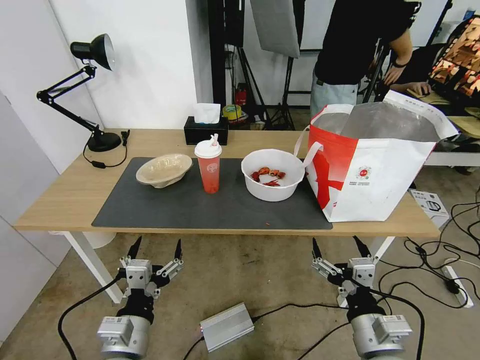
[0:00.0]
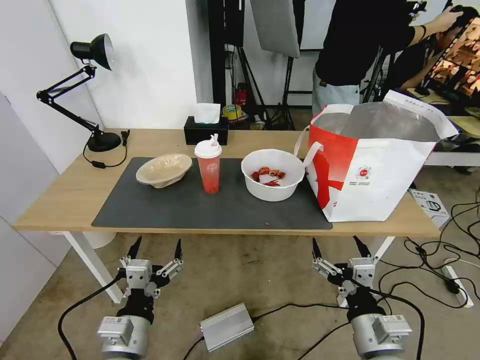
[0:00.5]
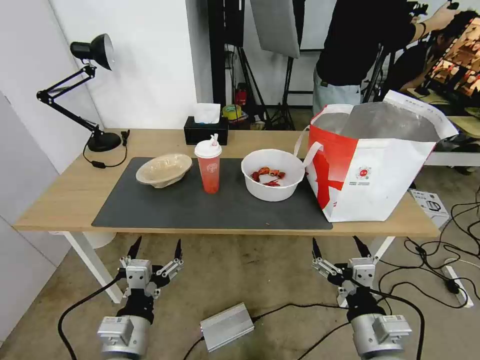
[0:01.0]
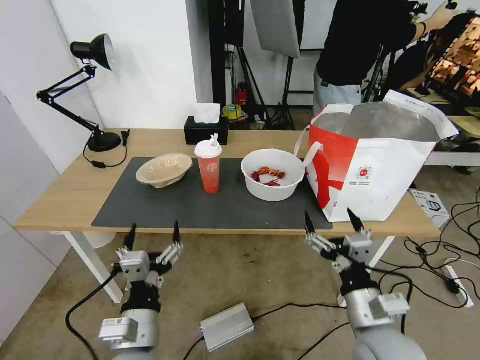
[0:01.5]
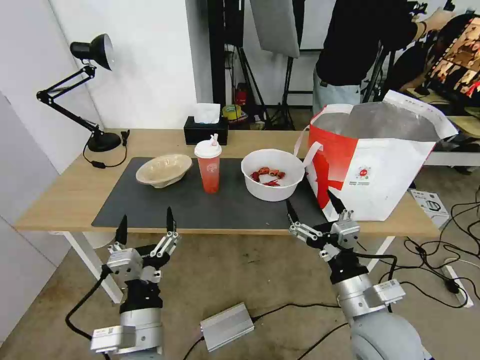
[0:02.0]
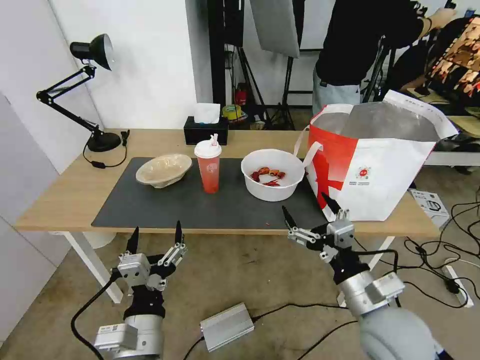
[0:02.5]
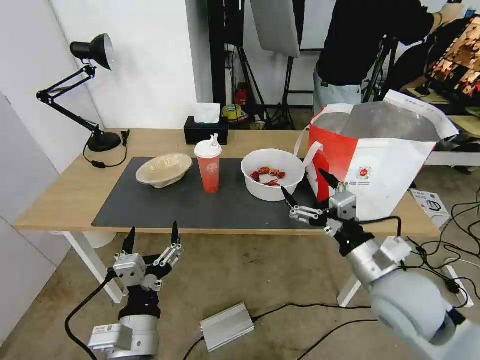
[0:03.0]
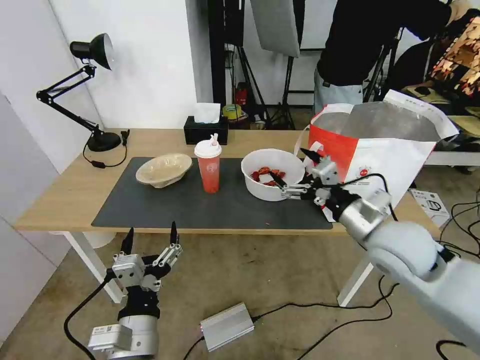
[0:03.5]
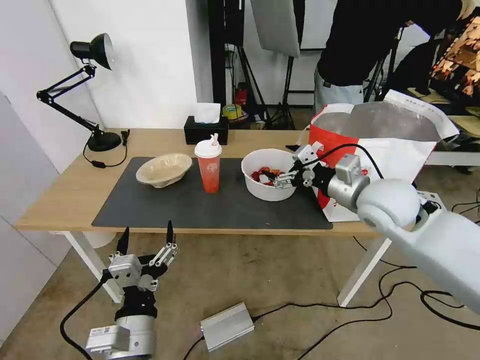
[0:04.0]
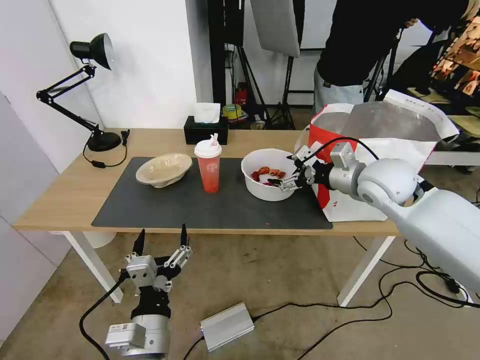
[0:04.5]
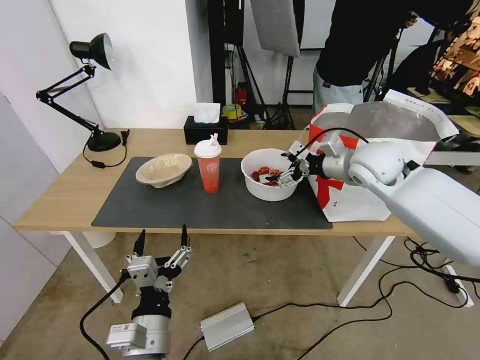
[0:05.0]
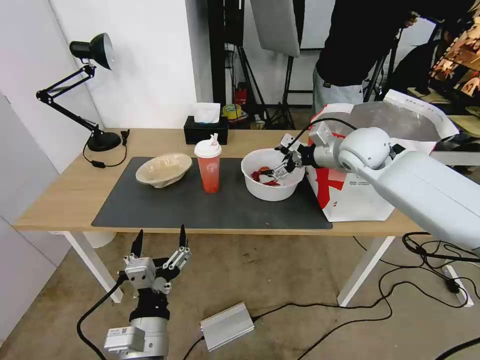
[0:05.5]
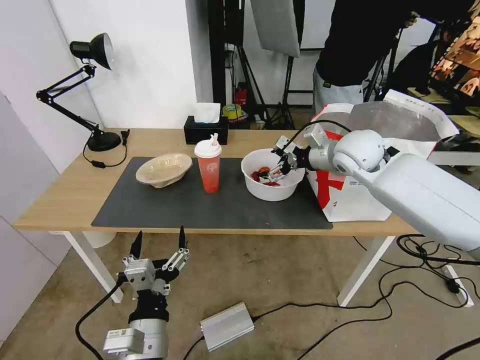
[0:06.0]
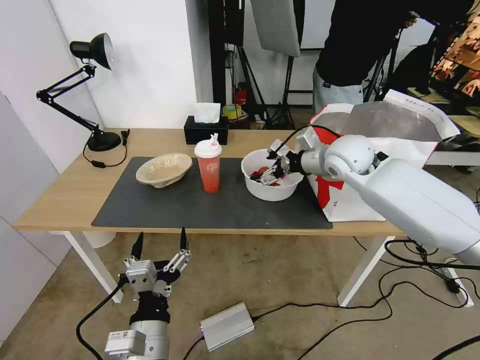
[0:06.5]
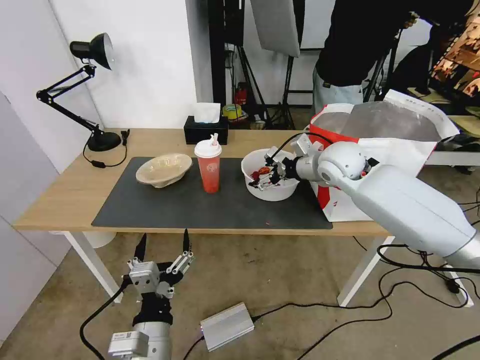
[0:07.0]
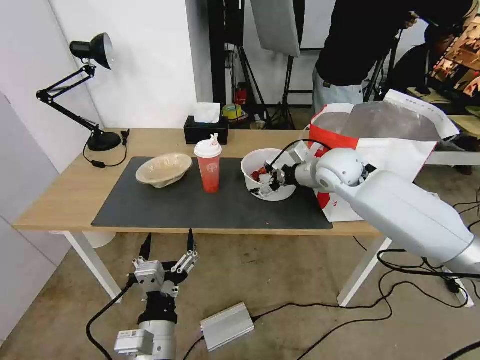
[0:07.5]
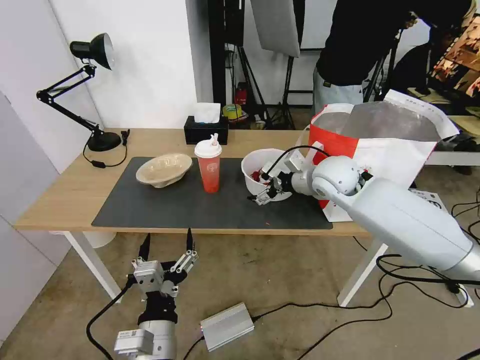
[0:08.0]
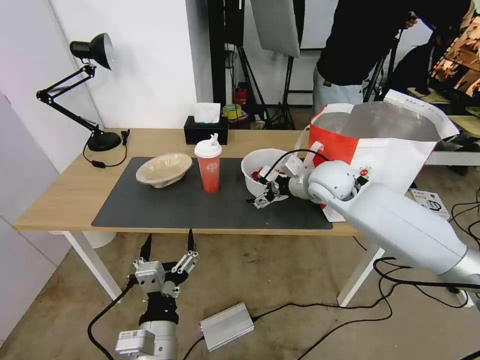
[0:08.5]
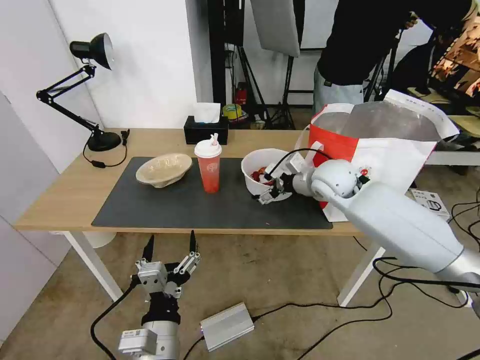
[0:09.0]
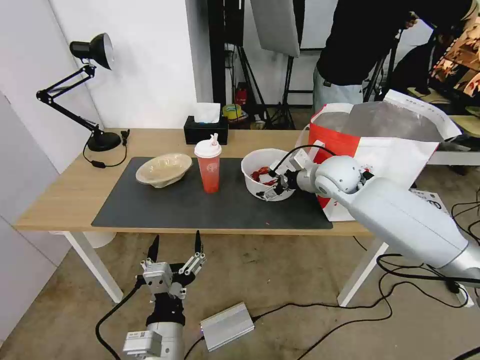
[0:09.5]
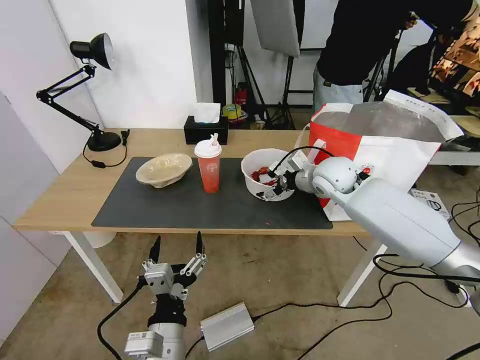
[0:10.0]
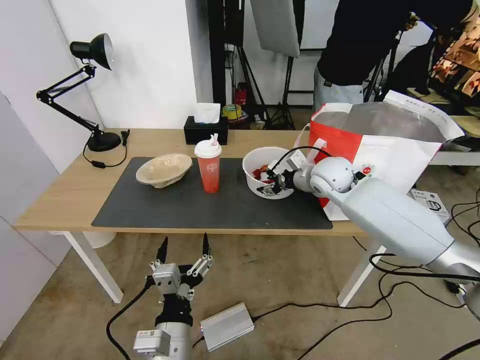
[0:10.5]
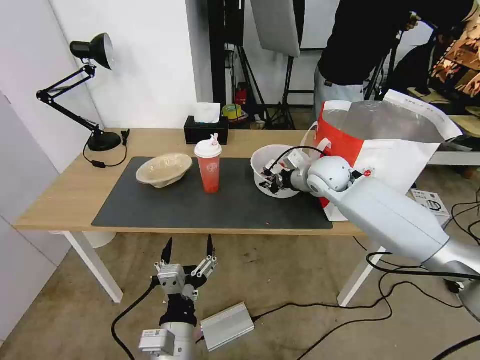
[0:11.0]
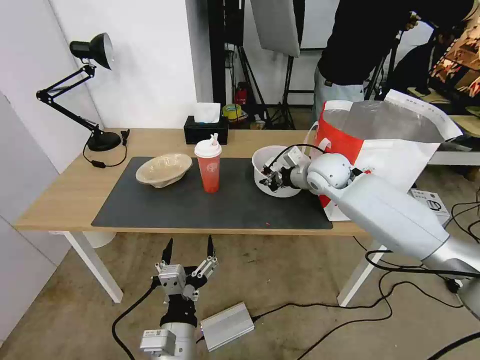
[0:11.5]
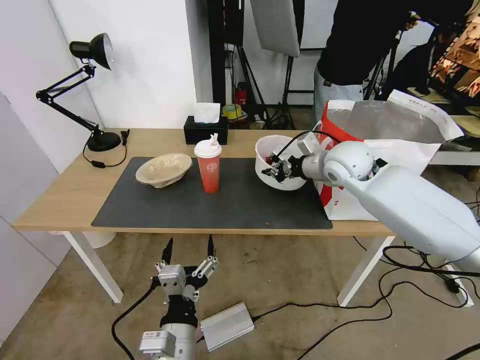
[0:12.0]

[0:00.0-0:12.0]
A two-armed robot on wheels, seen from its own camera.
Task of the whole recording: Pick up the trash from the table and place it into the takeout bag.
0:02.0 to 0:04.0: The right gripper is displaced forward and upward by about 25 cm.
0:04.0 to 0:06.0: The right gripper shifts about 15 cm forward.
0:06.0 to 0:08.0: The right gripper heads downward, covering approximately 5 cm.
0:08.0 to 0:10.0: There are only small adjustments of the grippers.
0:10.0 to 0:12.0: The right gripper is displaced upward by about 5 cm, and closes its fingers.

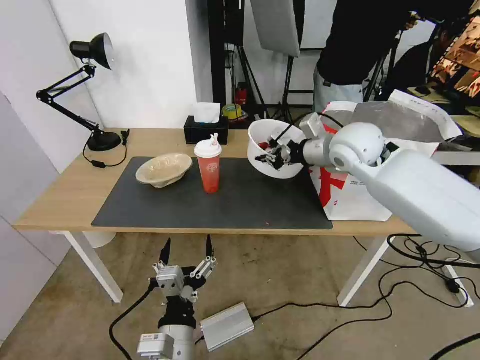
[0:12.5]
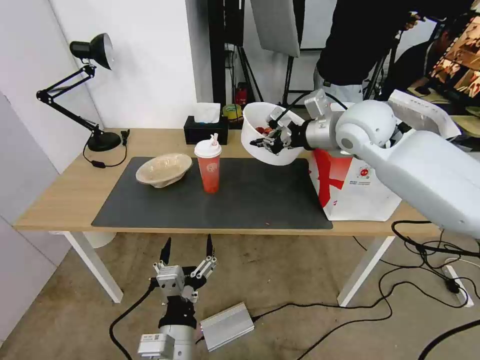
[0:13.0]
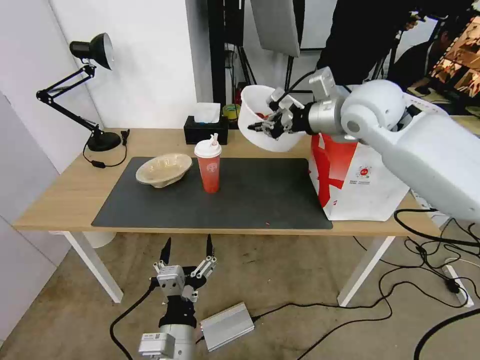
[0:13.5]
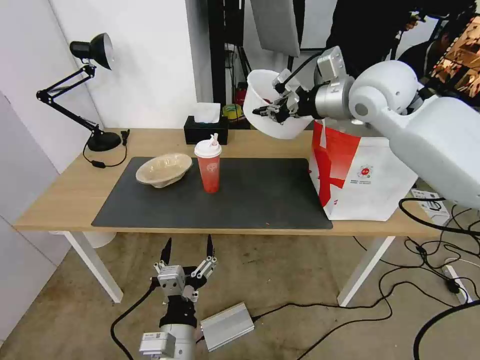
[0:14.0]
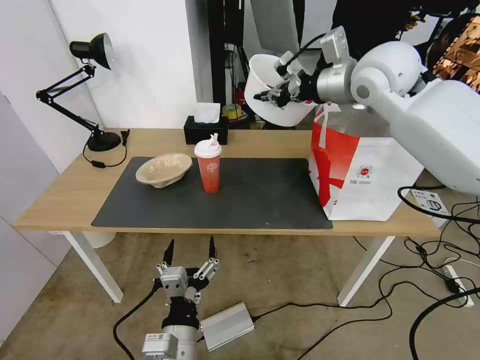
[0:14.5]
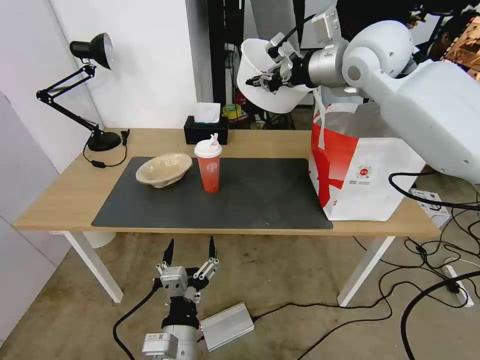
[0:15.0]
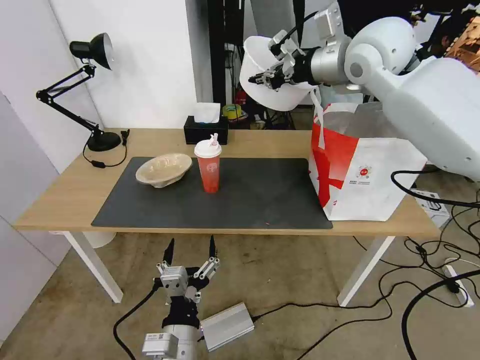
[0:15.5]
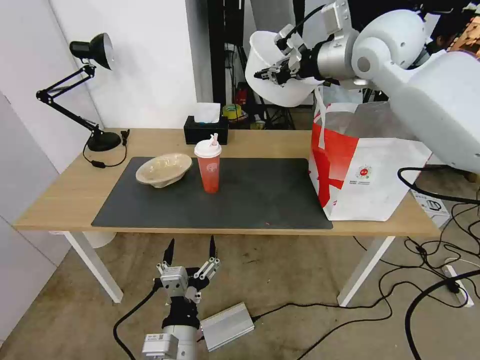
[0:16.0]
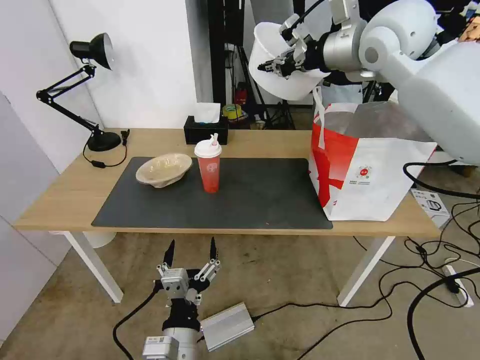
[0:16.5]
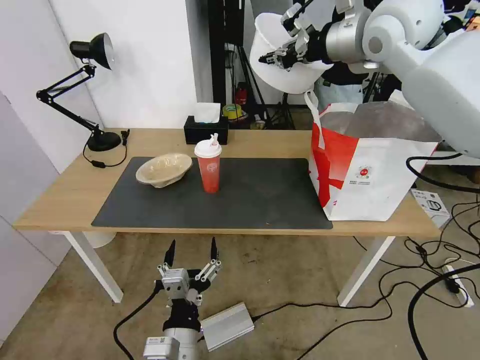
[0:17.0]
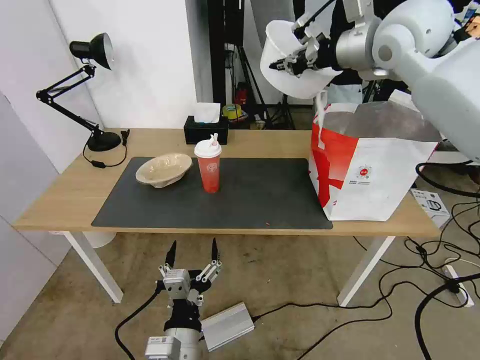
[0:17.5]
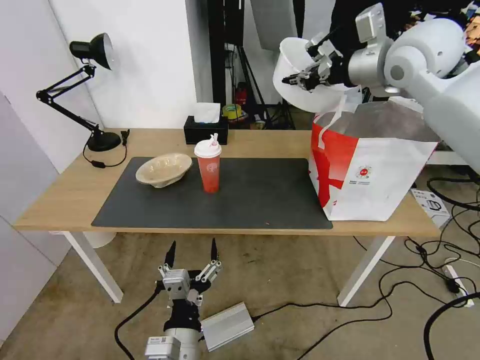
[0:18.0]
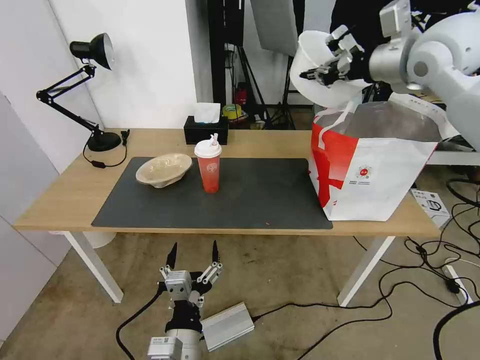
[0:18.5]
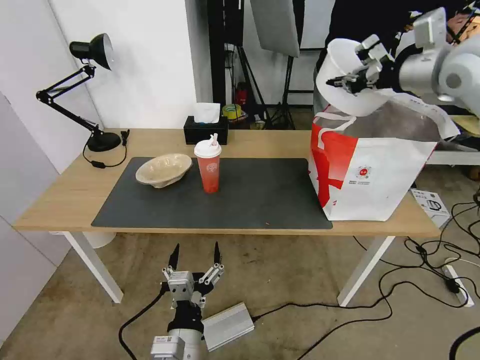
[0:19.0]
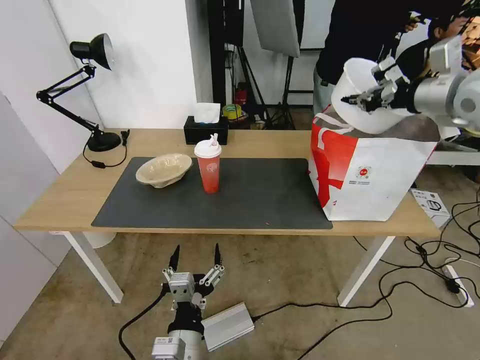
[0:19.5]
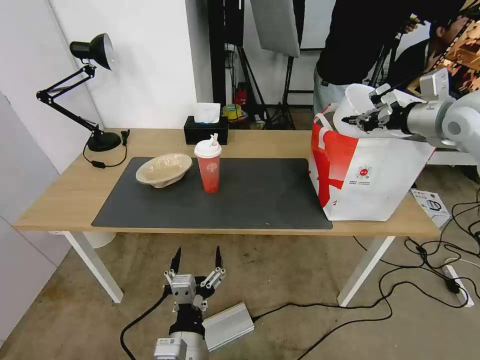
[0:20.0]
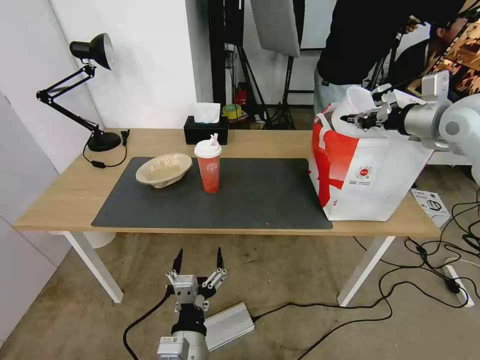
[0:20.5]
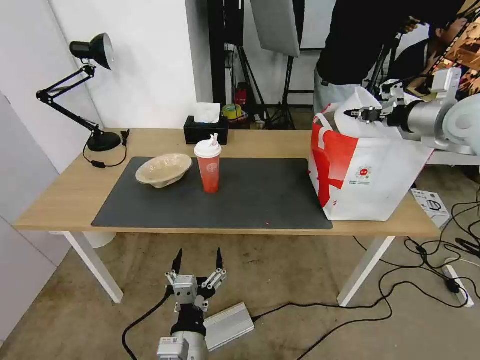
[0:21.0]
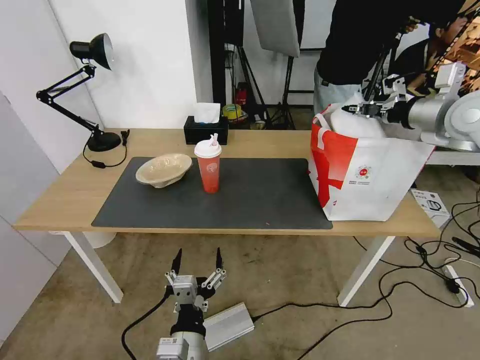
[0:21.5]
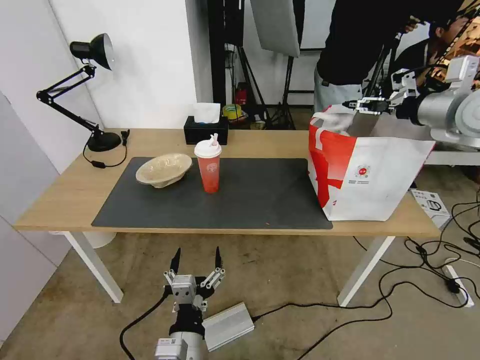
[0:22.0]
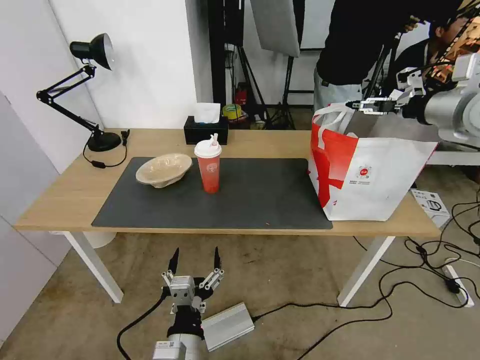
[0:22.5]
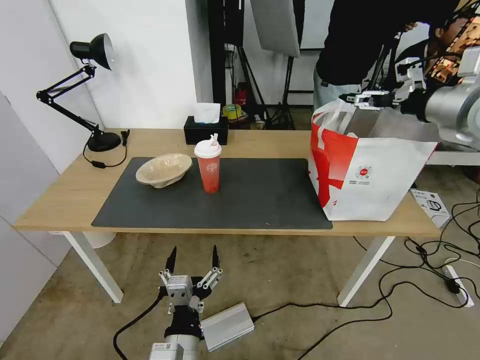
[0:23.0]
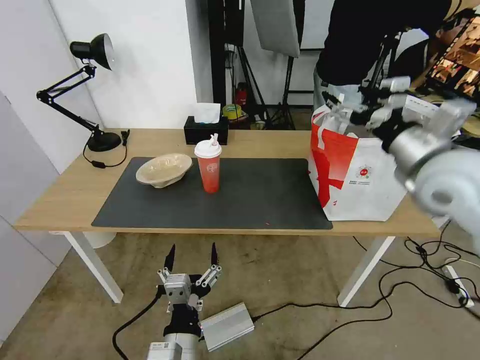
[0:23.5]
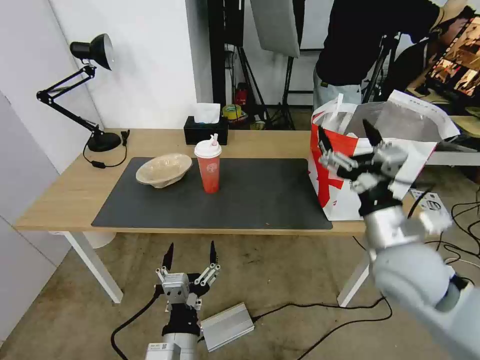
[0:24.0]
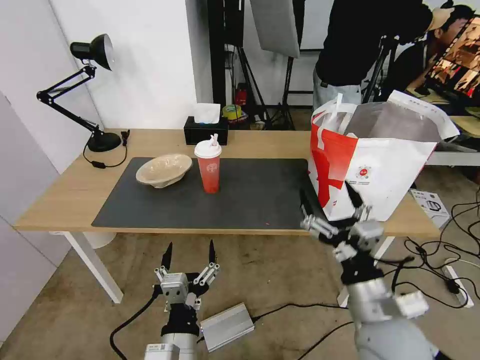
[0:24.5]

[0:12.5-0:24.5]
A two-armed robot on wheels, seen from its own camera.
Task of the whole recording: Pick up the trash from the table and place it into the takeout bag.
0:12.5 to 0:14.5: The right gripper heads upward, covering approximately 15 cm.
0:14.5 to 0:16.5: There are only small adjustments of the grippers.
0:16.5 to 0:18.5: The right gripper heads to the right, covering about 10 cm.
0:18.5 to 0:20.5: The right gripper moves to the right and downward, about 15 cm.
0:20.5 to 0:22.5: The right gripper opens.
0:22.5 to 0:24.5: The right gripper heads backward, downward and to the left, covering some 40 cm.

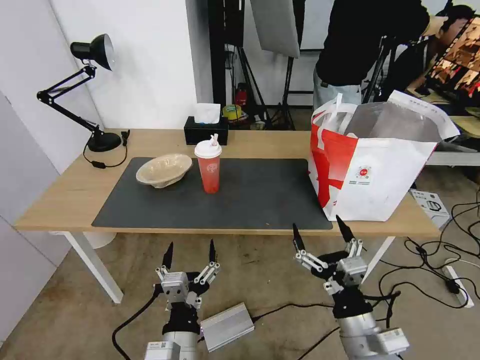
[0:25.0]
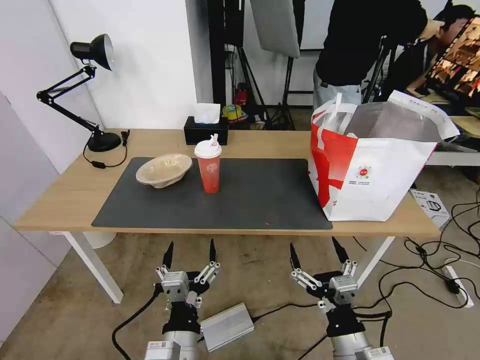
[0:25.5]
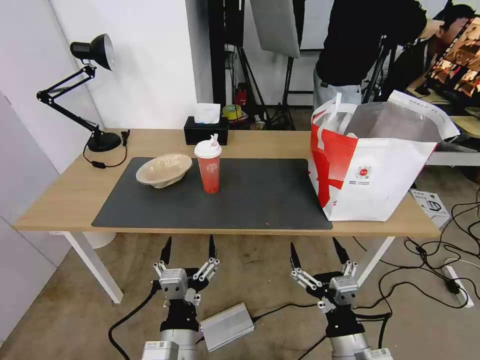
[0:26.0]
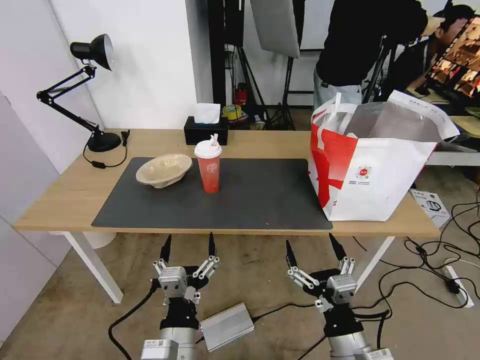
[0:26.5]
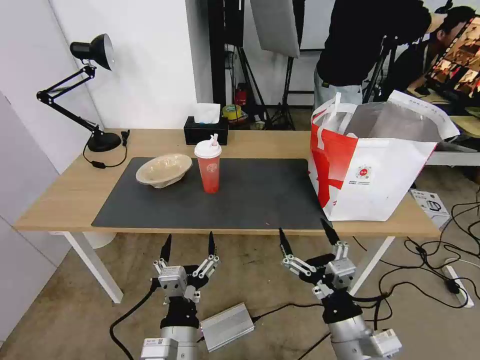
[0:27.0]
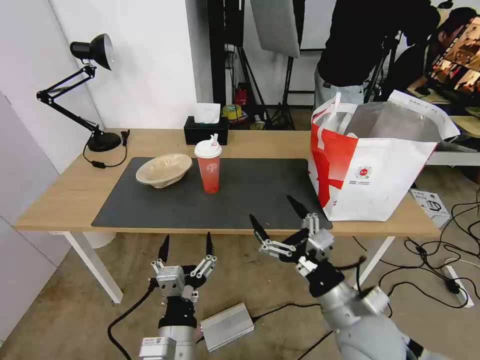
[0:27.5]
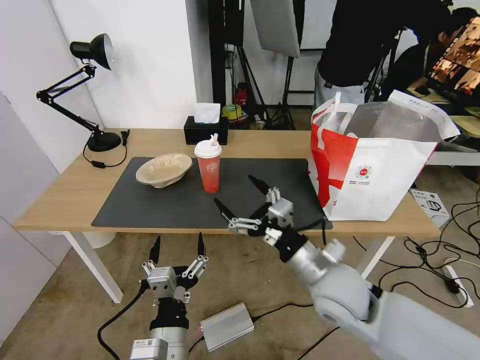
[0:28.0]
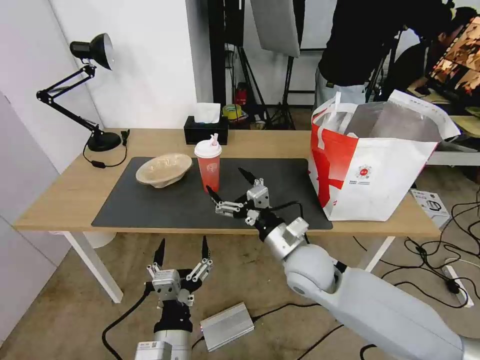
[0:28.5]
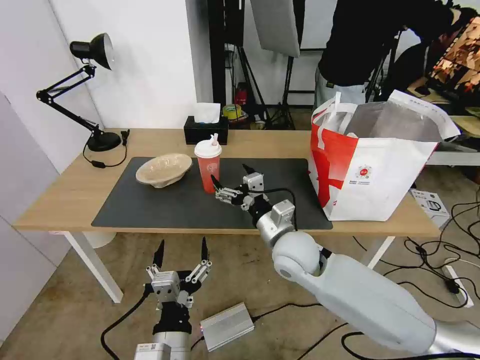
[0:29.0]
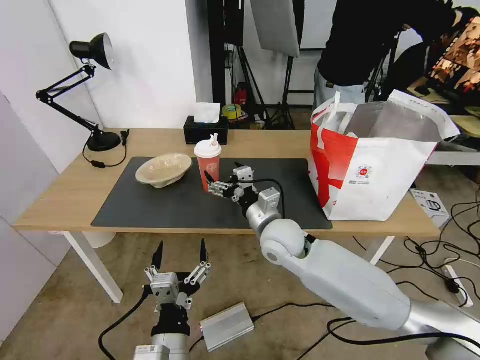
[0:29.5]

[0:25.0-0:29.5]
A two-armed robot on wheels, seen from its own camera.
Task of the whole recording: Pick up the trash from the table and place it into the takeout bag.
0:25.0 to 0:27.0: The grippers make only small movements.
0:27.0 to 0:29.5: The right gripper is displaced forward and to the left by approximately 25 cm.
